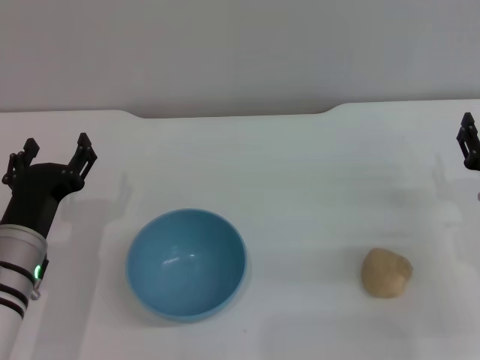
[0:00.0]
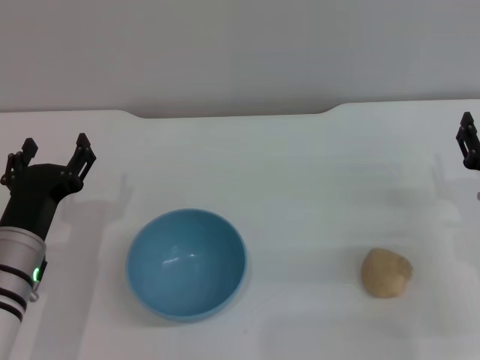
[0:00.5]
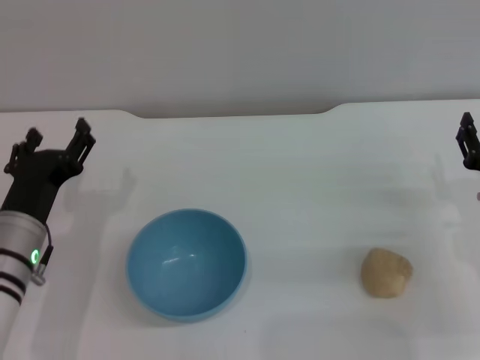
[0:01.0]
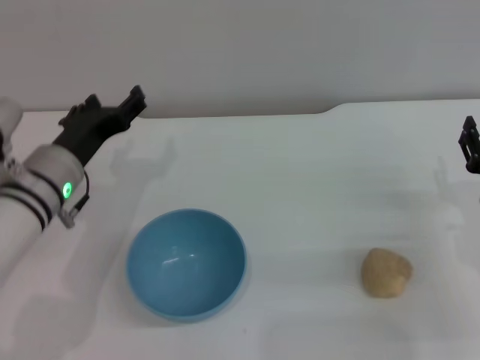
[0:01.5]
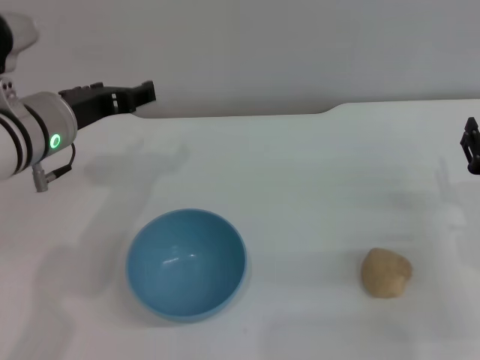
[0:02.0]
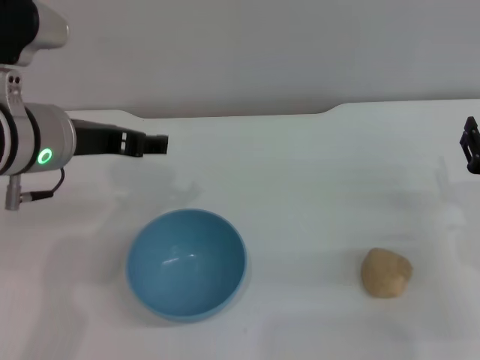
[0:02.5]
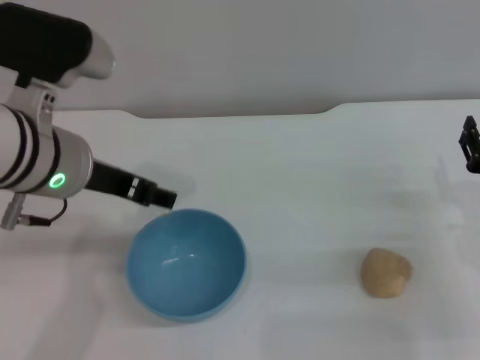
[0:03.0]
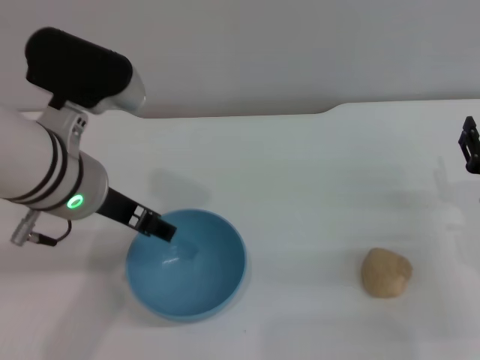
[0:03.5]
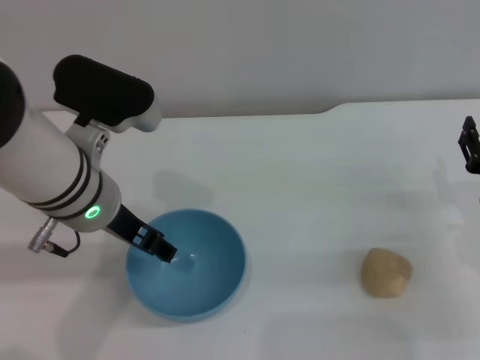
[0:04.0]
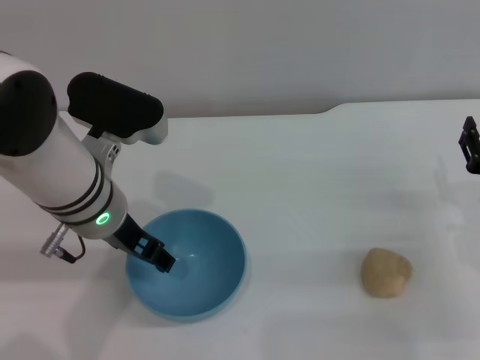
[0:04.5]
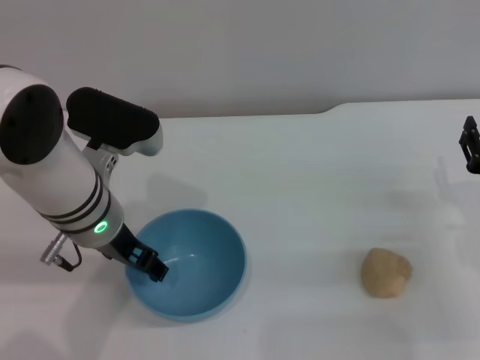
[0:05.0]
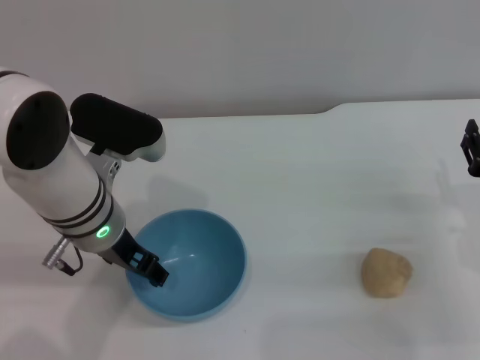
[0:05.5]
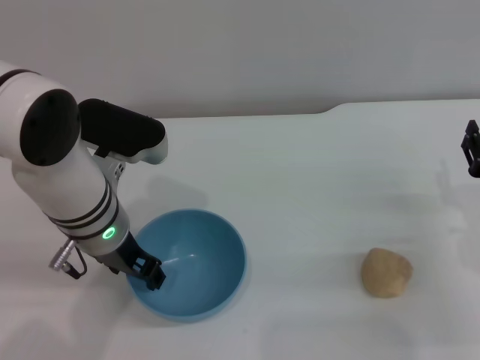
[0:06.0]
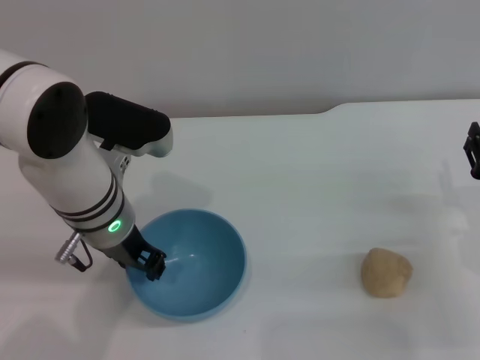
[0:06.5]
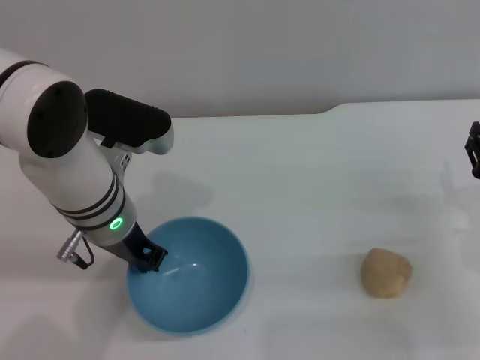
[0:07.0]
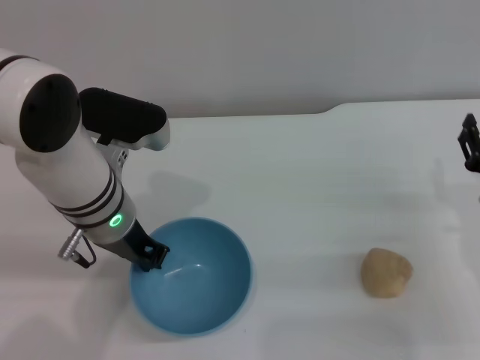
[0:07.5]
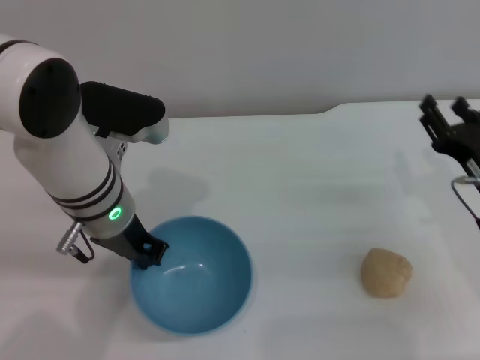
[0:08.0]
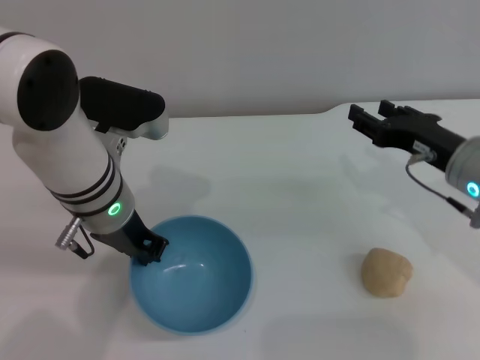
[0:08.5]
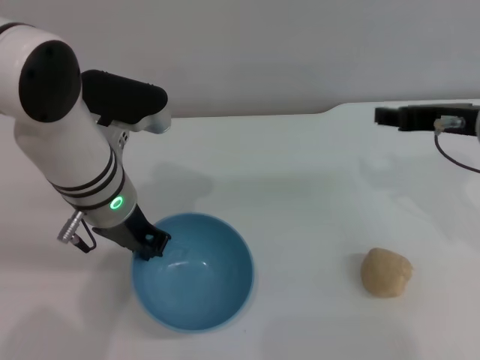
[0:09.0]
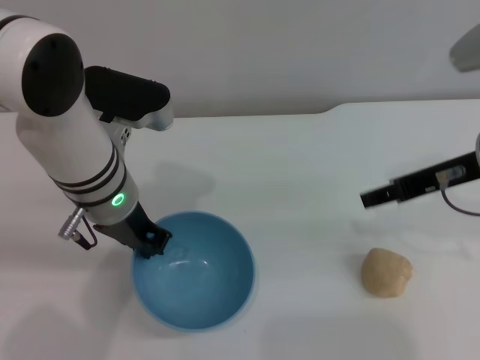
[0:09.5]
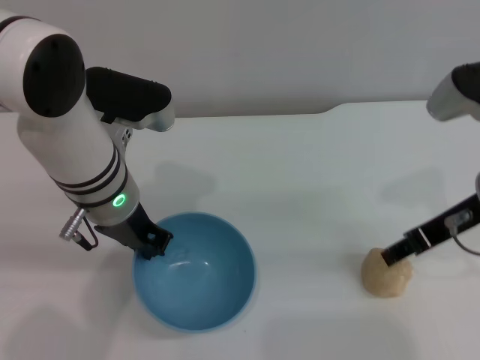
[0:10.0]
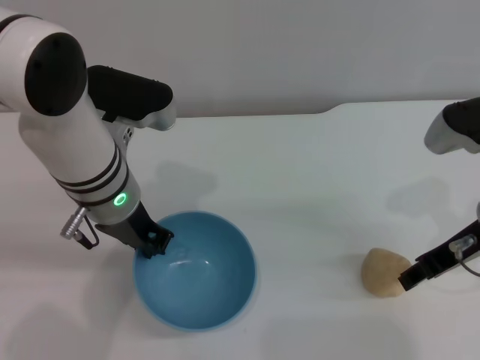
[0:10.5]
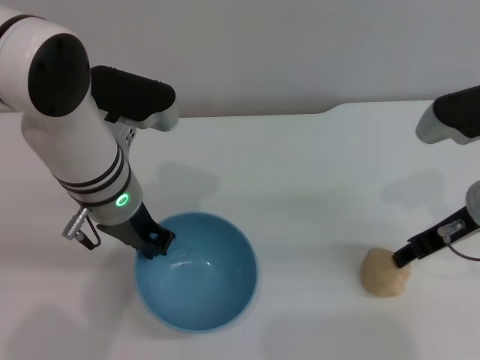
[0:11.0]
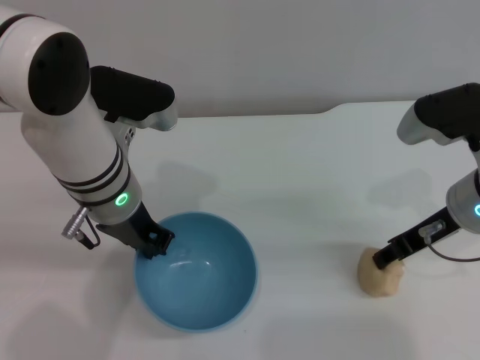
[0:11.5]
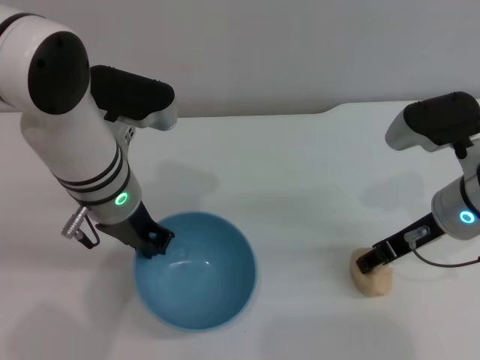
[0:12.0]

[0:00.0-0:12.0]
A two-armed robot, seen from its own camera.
Task of the whole recording: put the egg yolk pastry into the blue bowl and pour it out repeatedly.
Step, 0:00.0 to 0:09.5: Pick up the bowl with the left gripper.
0:00.0 to 0:02.0: The left gripper travels upward and forward by roughly 15 cm.
0:02.0 to 0:04.0: The left gripper travels to the right by roughly 5 cm.
0:04.0 to 0:06.0: The grippers make only small movements.
0:06.0 to 0:08.0: The left gripper closes its fingers.
0:08.0 to 0:10.0: The right gripper moves upward, about 10 cm.
0:10.0 to 0:12.0: The right gripper travels downward by about 5 cm.

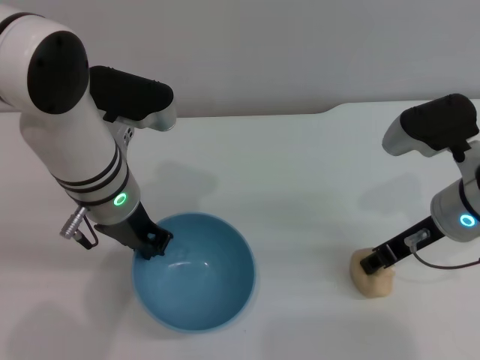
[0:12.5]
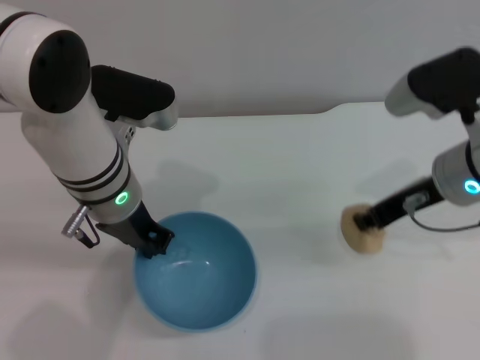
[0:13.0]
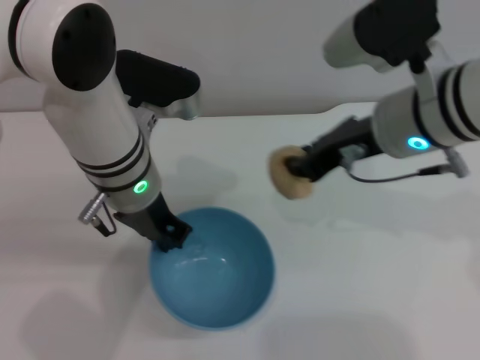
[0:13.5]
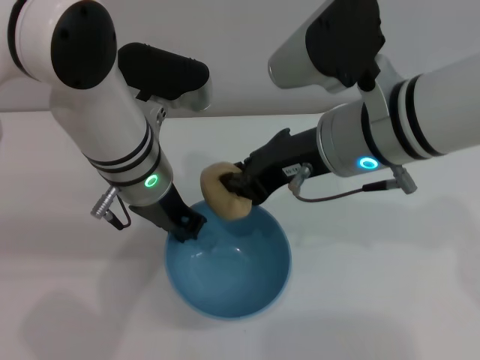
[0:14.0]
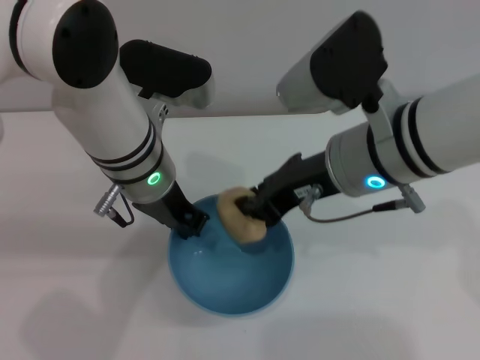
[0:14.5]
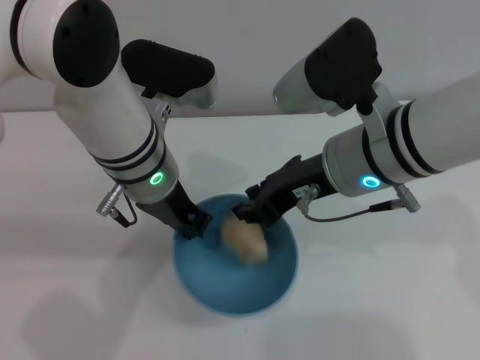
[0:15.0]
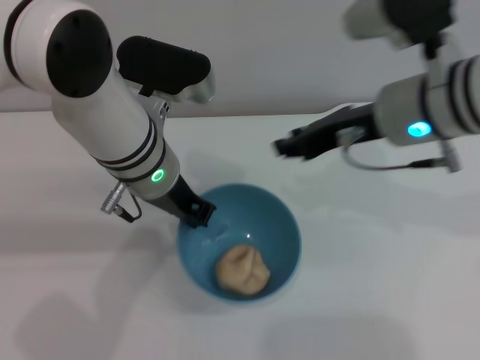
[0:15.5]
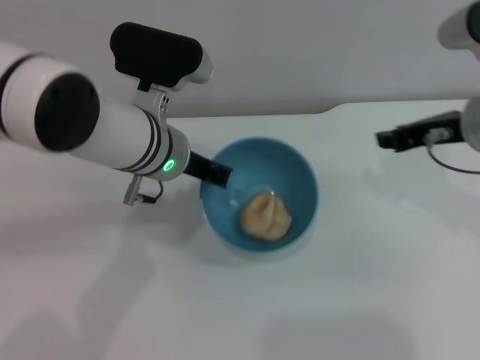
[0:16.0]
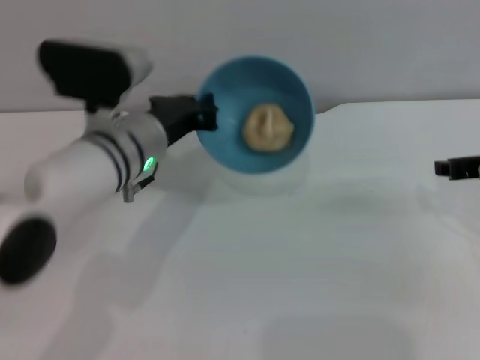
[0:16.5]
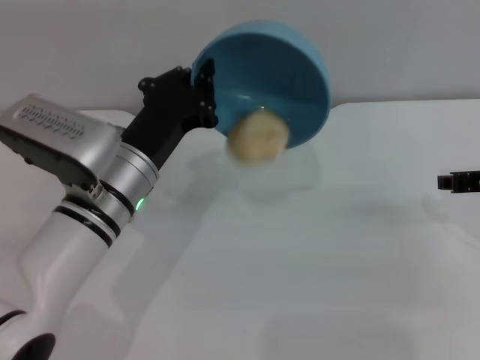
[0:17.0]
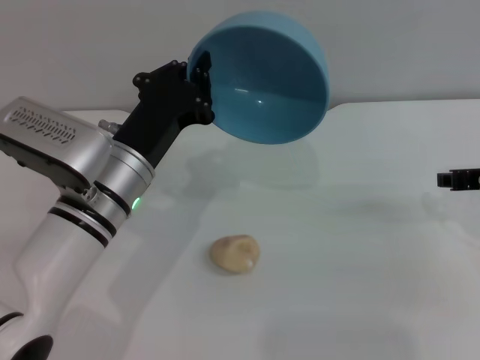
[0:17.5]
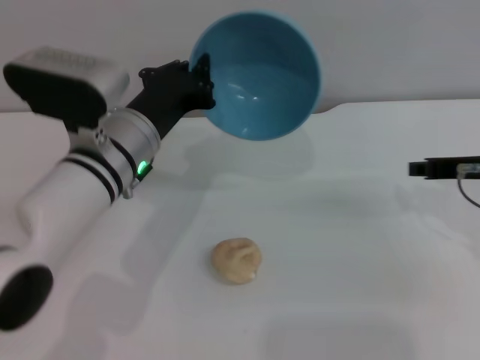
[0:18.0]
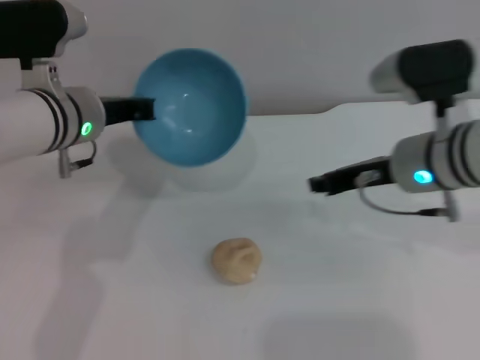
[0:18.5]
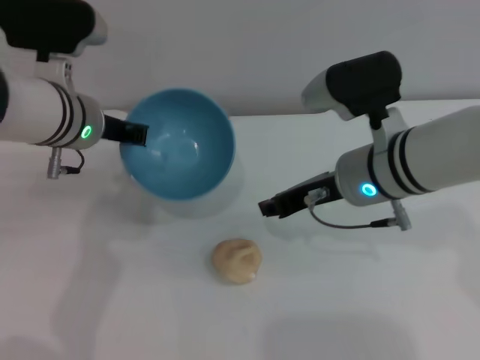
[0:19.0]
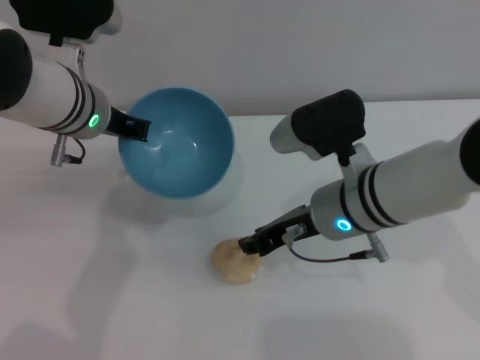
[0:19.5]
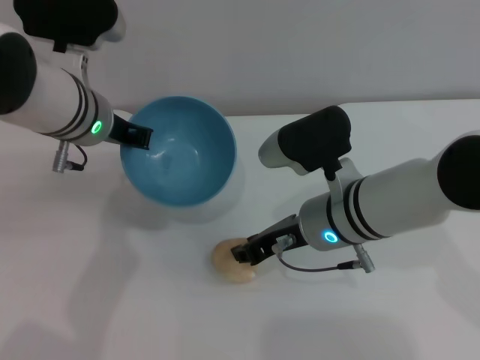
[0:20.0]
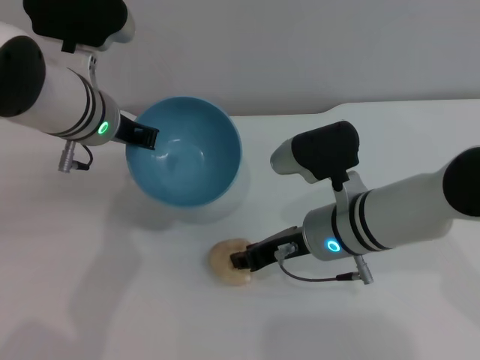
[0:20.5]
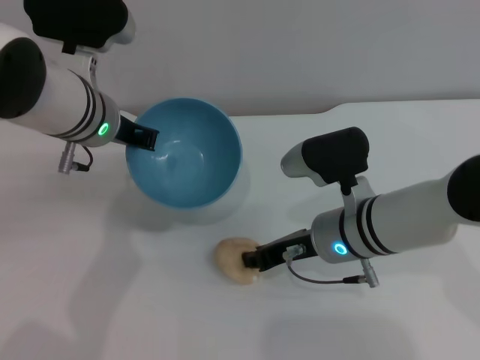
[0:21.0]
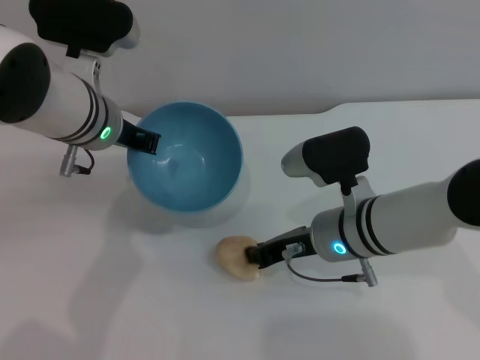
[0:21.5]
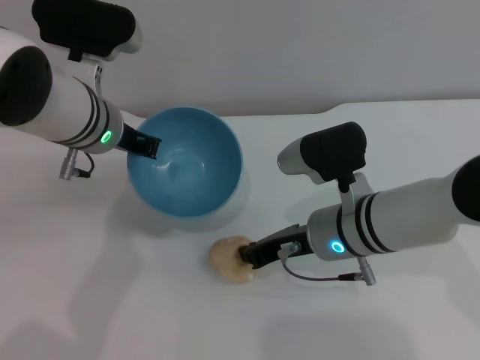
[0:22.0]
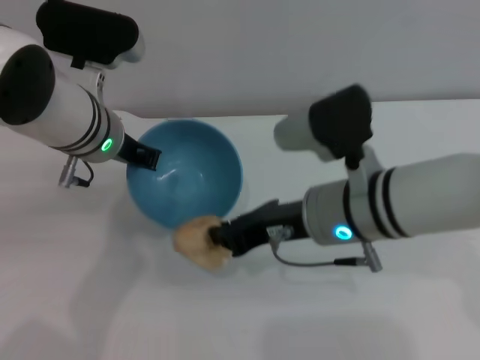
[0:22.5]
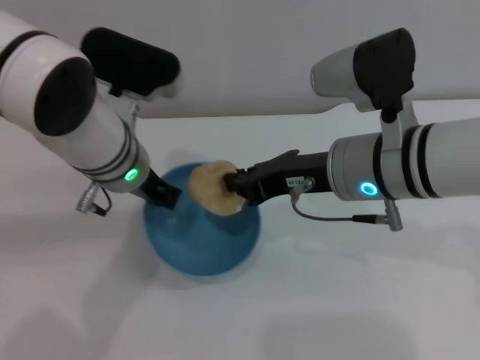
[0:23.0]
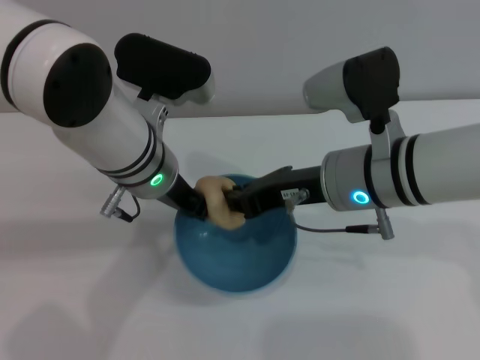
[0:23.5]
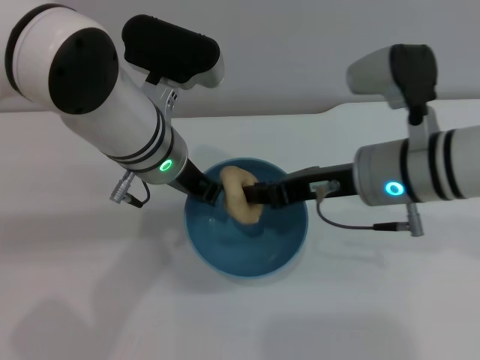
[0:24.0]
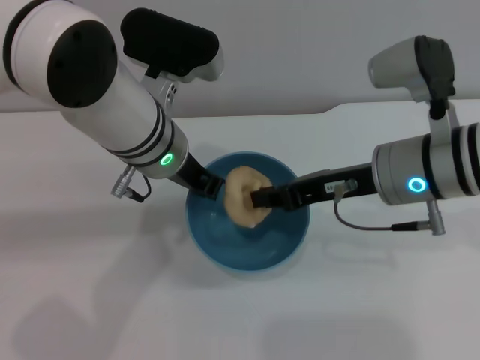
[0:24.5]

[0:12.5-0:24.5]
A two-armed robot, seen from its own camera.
Task of the whole recording: put the egg yolk pastry into the blue bowl and pour it out repeatedly.
Step, 0:13.5 to 0:16.0: Place the egg yolk pastry into the bowl.
Step, 0:16.5 to 0:17.5: Pour the egg yolk pastry out of bowl.
Step, 0:18.0 to 0:22.0: Pick up the egg yolk pastry with the right gripper.
0:12.5 to 0:14.5: The right gripper travels to the left and upward by some 15 cm, and closes.
0:14.5 to 0:16.5: The left gripper shifts by approximately 5 cm. The right gripper heads to the right, covering some 20 cm, and opens its fingers.
0:16.5 to 0:18.5: The right gripper shifts approximately 10 cm to the left, while the left gripper shifts approximately 5 cm to the left.
0:18.5 to 0:20.5: The right gripper goes about 10 cm to the left and downward.
0:20.5 to 0:22.5: The right gripper shifts roughly 5 cm upward, and closes.
0:22.5 to 0:24.5: Both grippers move to the right, roughly 5 cm.

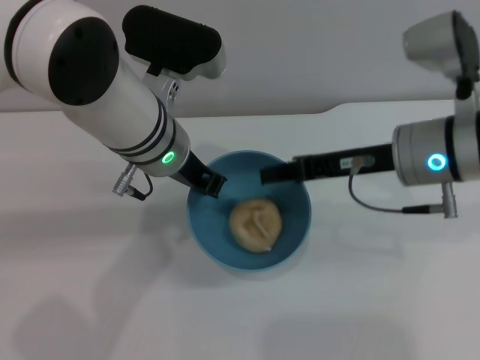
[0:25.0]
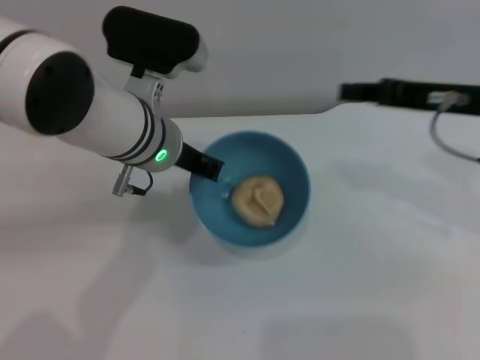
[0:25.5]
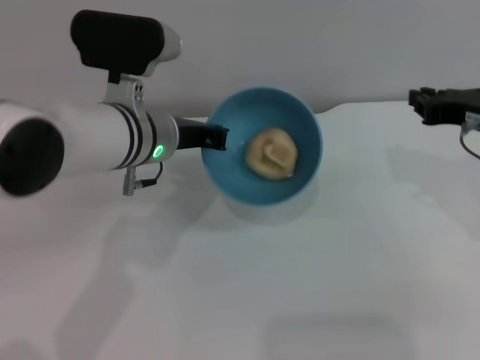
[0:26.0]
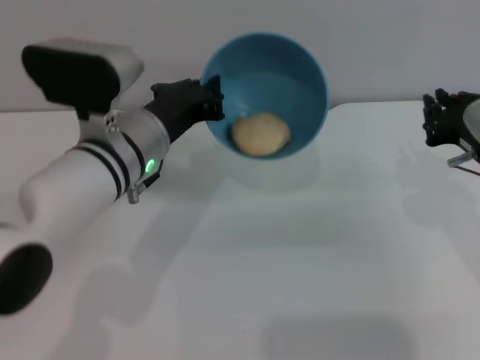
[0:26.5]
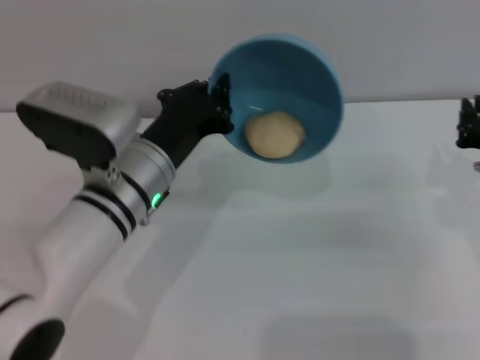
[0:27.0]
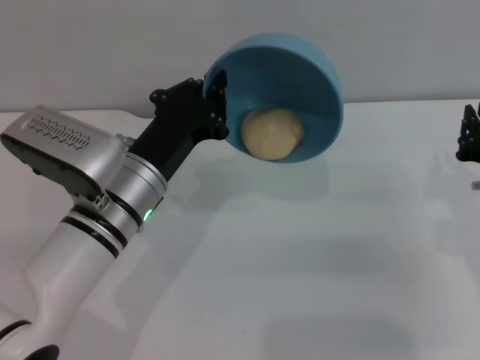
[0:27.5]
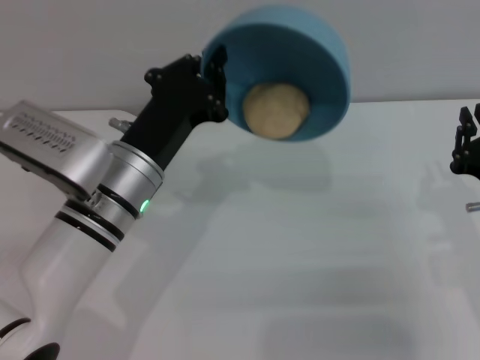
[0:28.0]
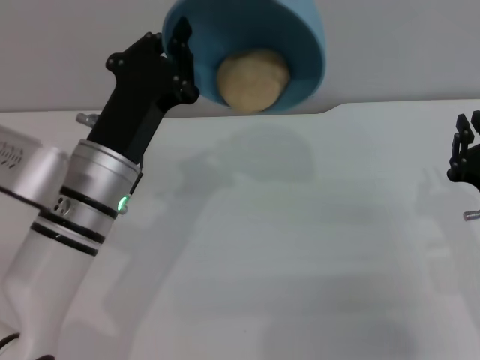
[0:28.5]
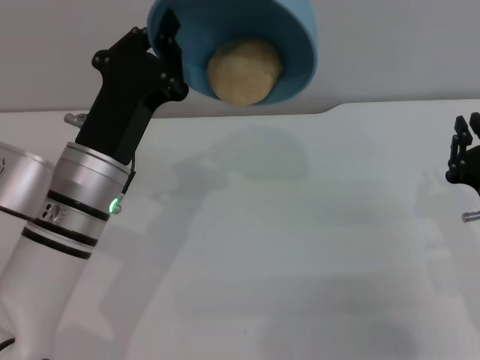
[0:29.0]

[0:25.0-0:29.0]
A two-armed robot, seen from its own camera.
Task of the whole recording: put the egg yolk pastry into the blue bowl and pour it out repeatedly.
0:25.0 to 0:27.0: The left gripper goes about 5 cm downward. The right gripper shifts about 15 cm to the right and downward.
0:27.0 to 0:29.0: The right gripper heads backward, covering approximately 5 cm.
